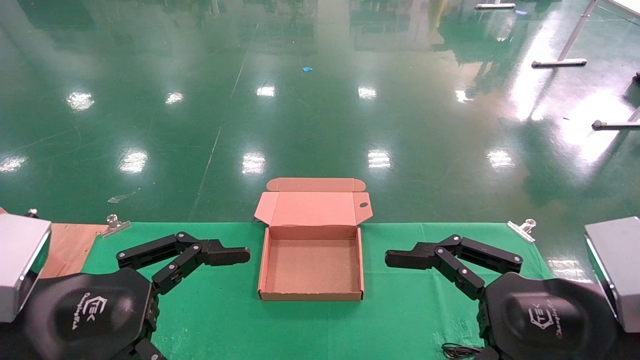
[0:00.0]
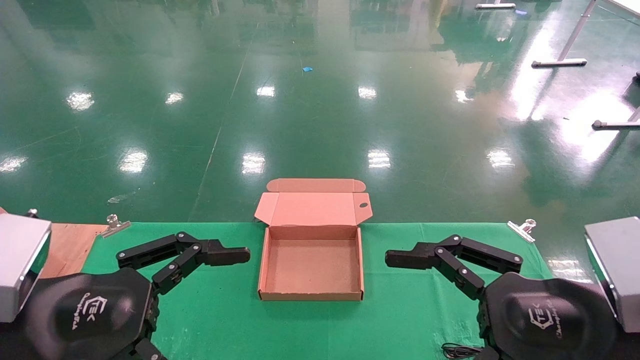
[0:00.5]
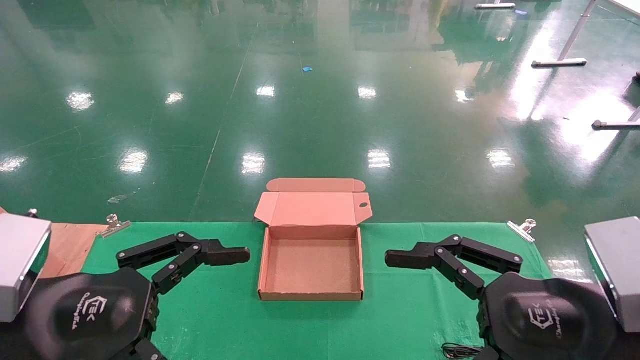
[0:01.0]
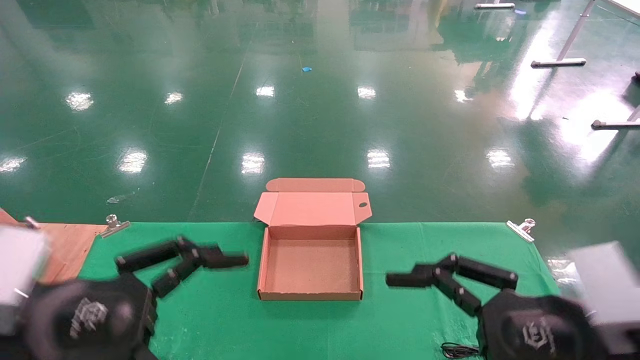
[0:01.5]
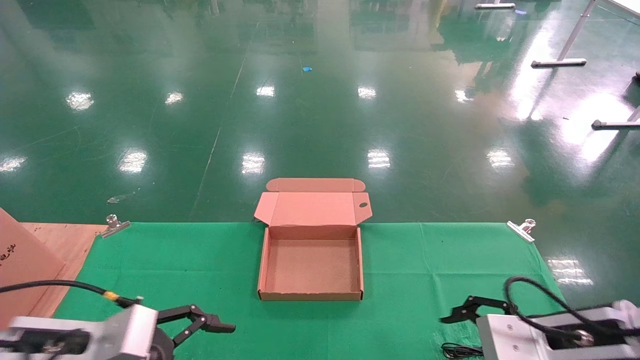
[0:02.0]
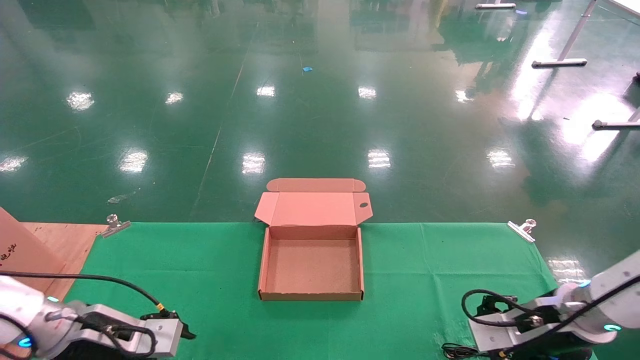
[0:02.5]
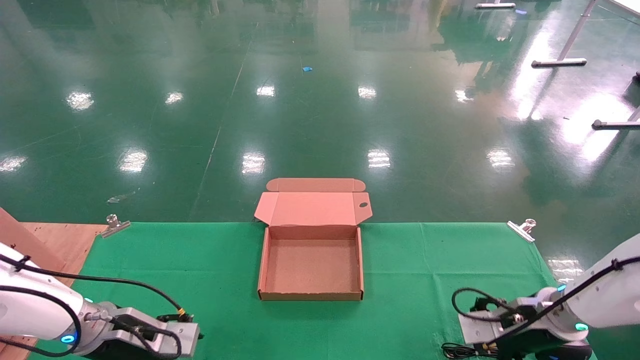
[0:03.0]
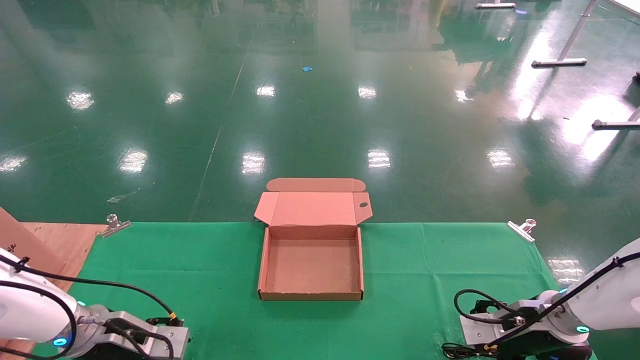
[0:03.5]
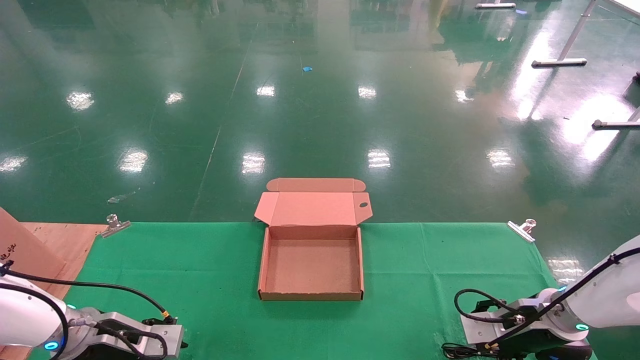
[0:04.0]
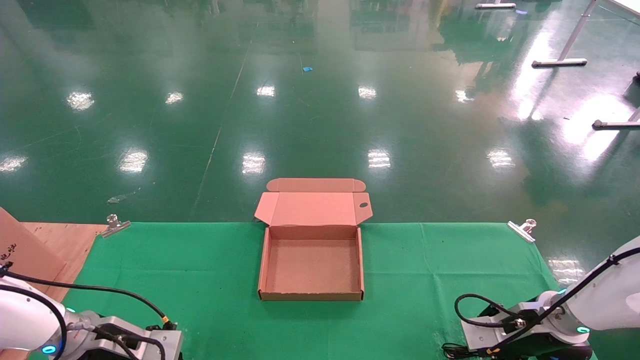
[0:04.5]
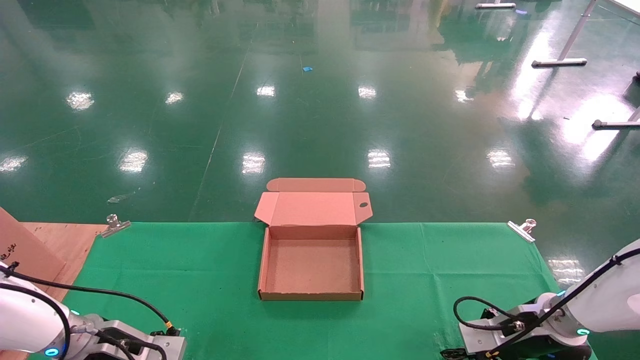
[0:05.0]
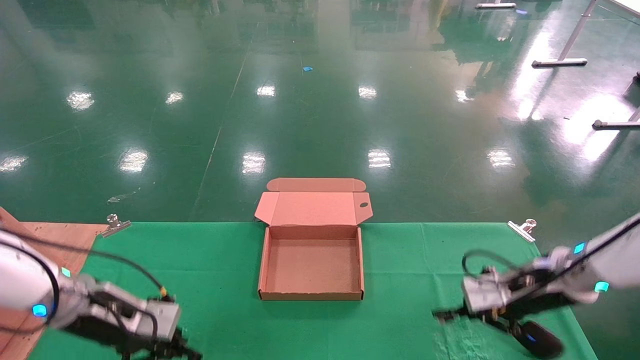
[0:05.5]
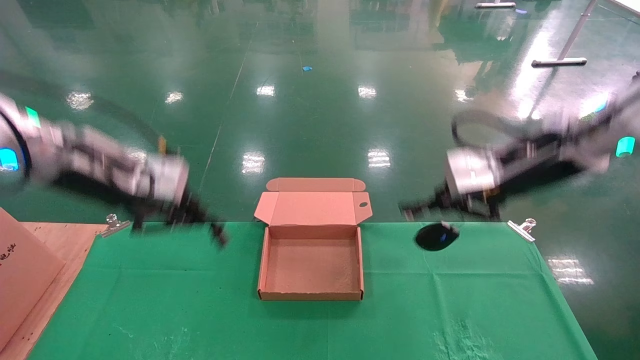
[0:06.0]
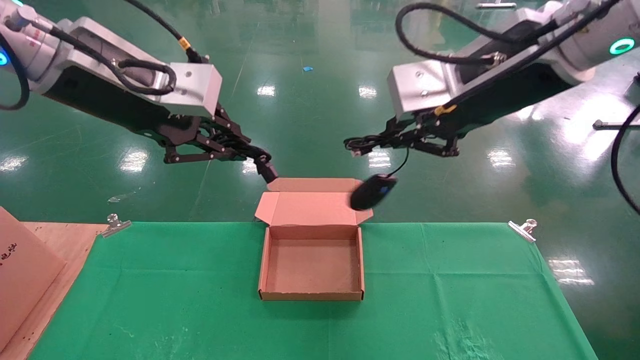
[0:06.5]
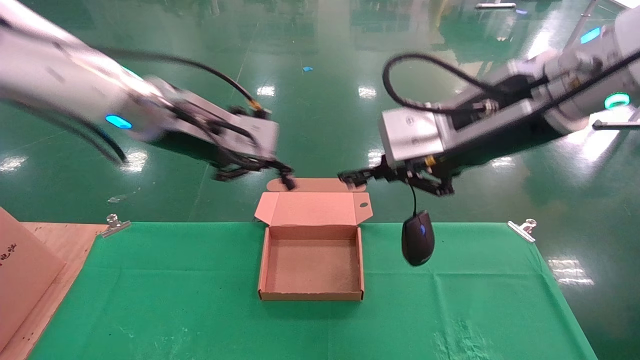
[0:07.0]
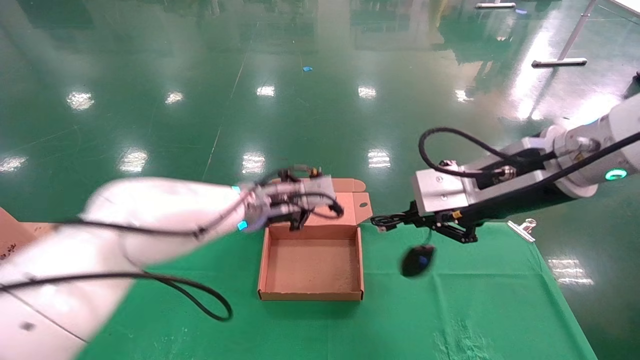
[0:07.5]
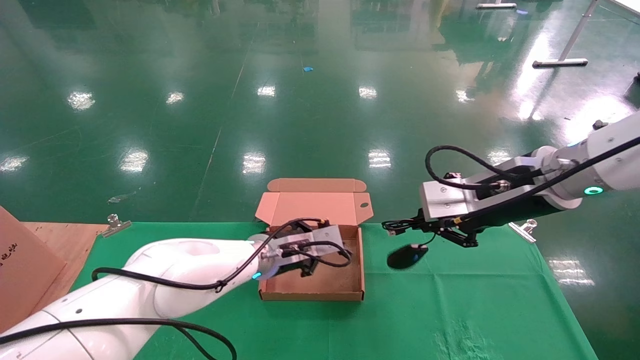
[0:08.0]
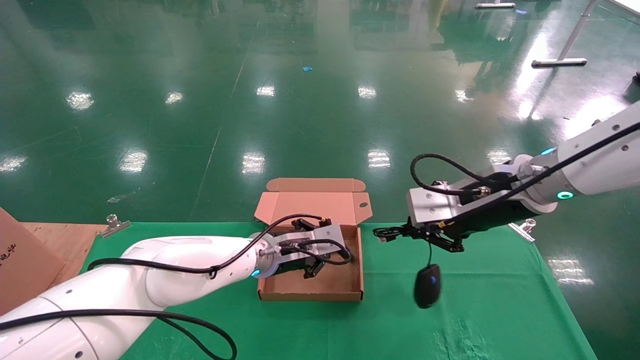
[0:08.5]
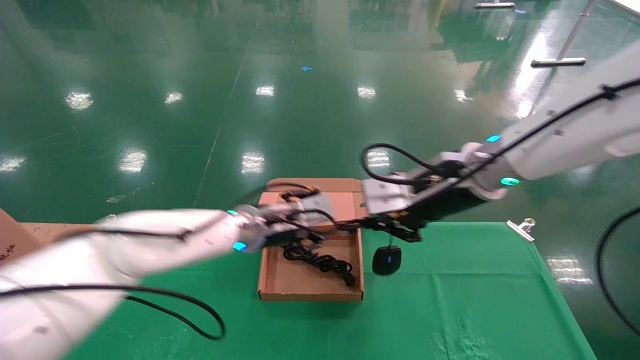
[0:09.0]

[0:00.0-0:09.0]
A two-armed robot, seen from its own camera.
Step, 0:03.0 to 0:05.5: Grab and lift both the mouse and power cord from the accessory packaging area at the same time.
0:00.0 to 0:02.0: The right gripper is displaced forward and downward by about 10 cm, while the left gripper moves downward and forward, approximately 10 cm.
0:02.0 to 0:04.5: The grippers both shift forward and downward by approximately 15 cm. The right gripper closes its fingers. Meanwhile the left gripper closes its fingers.
0:04.5 to 0:07.0: The right gripper travels upward, to the left and backward by about 40 cm, and closes its fingers, while the left gripper travels upward and to the right by about 35 cm.
0:07.0 to 0:09.0: The right gripper goes some 15 cm forward and downward; the left gripper is displaced downward and forward by approximately 20 cm, and opens up.

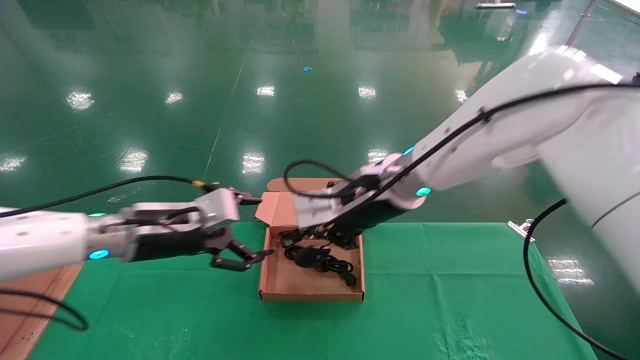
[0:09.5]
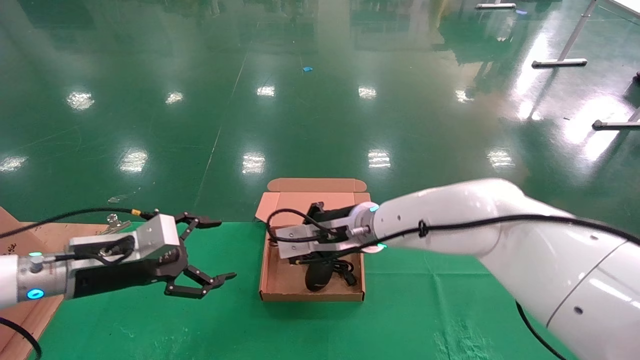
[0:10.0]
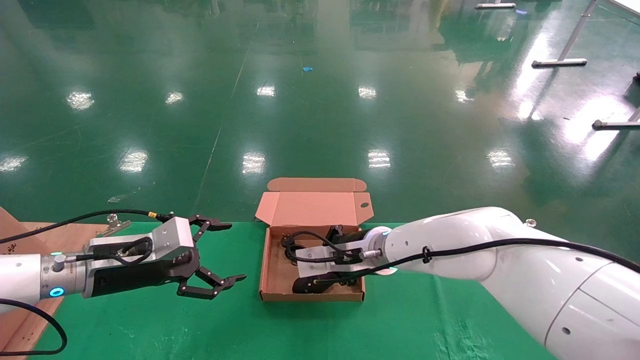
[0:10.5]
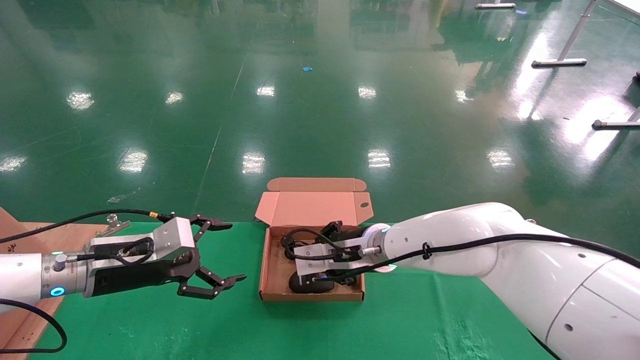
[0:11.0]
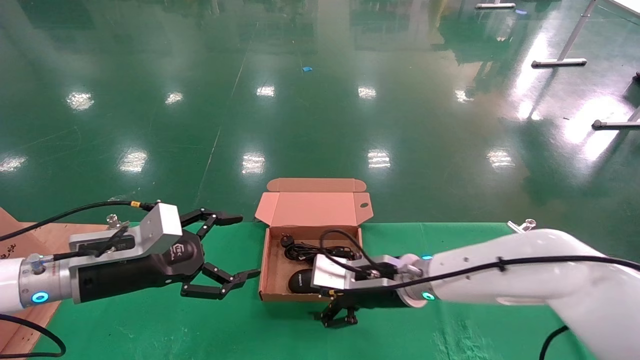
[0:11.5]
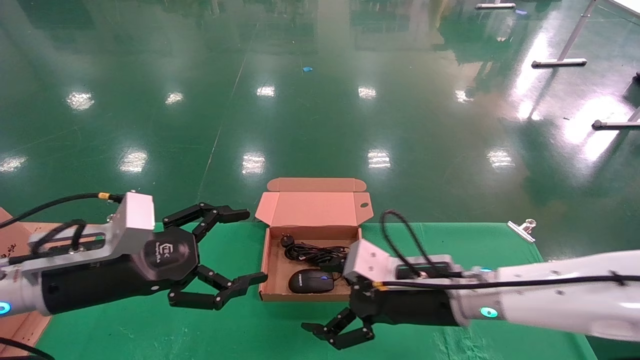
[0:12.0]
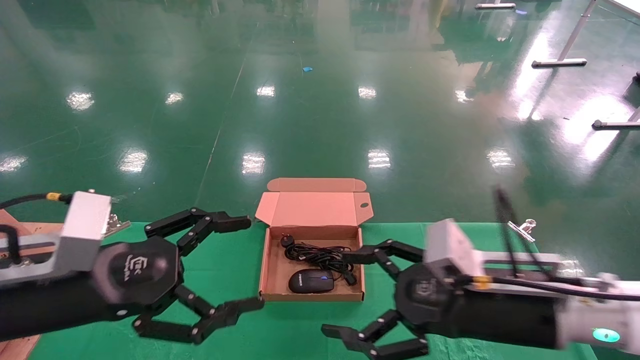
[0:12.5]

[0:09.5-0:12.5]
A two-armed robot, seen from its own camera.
0:09.5 to 0:11.0: The right gripper goes about 10 cm downward; the left gripper shifts about 5 cm to the left.
0:11.0 to 0:12.5: The right gripper shifts approximately 20 cm backward and to the right, and opens. The left gripper travels backward by approximately 15 cm.

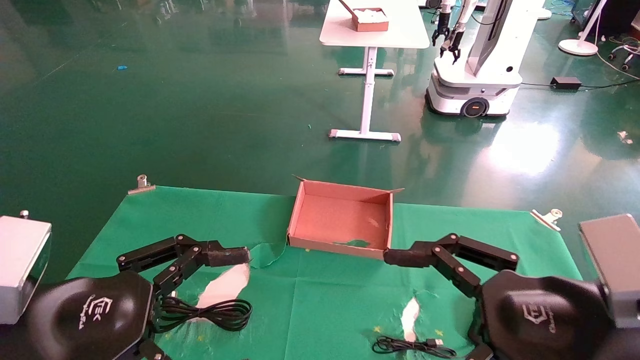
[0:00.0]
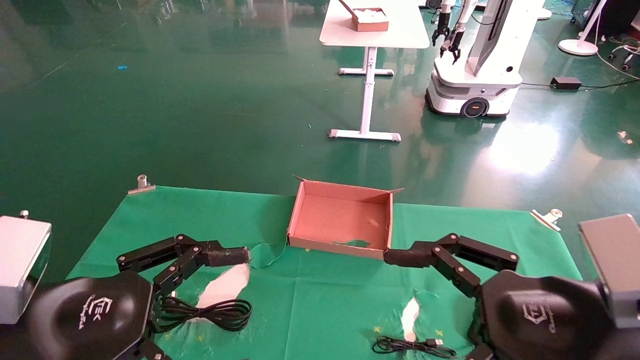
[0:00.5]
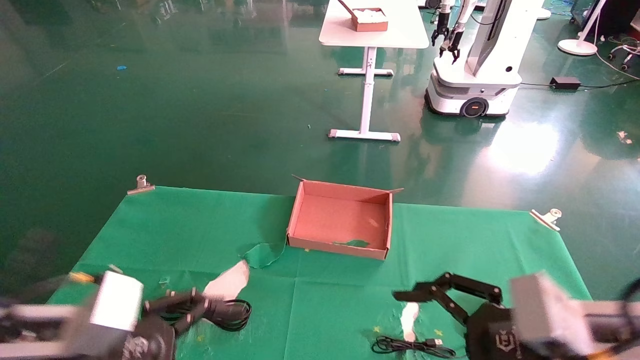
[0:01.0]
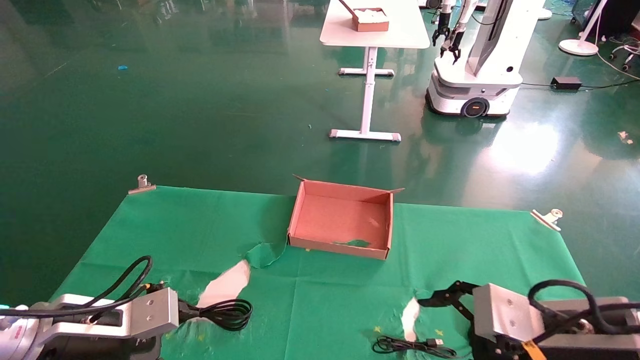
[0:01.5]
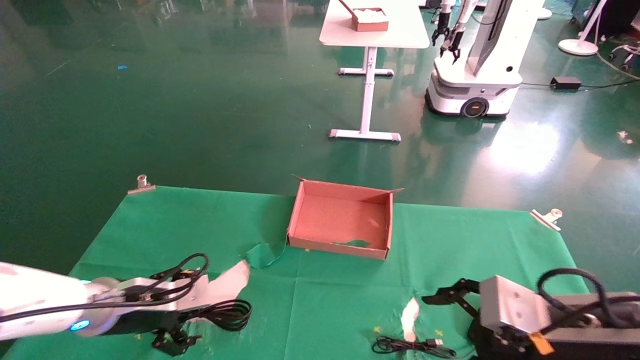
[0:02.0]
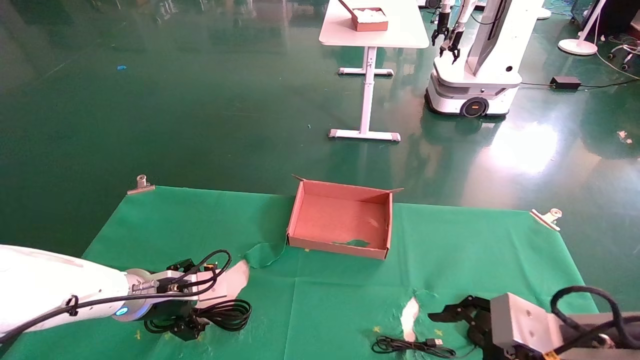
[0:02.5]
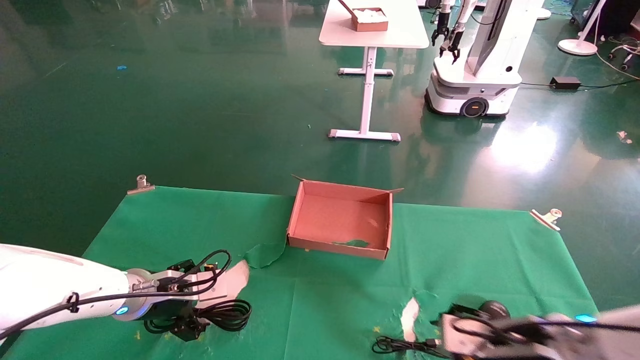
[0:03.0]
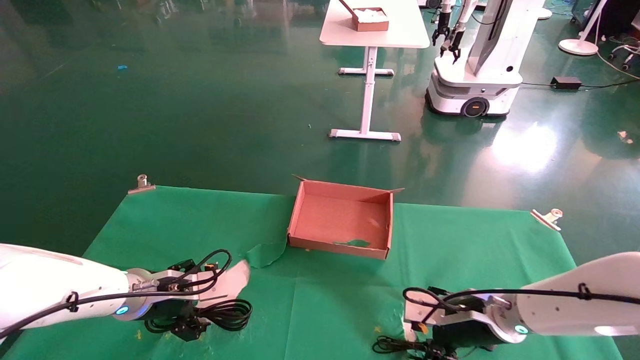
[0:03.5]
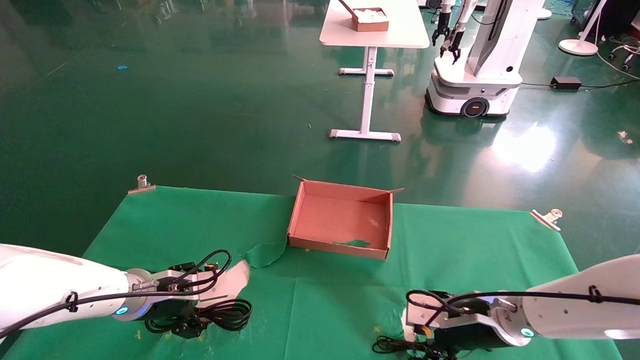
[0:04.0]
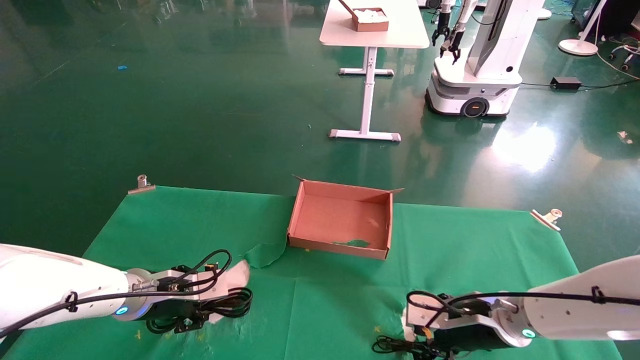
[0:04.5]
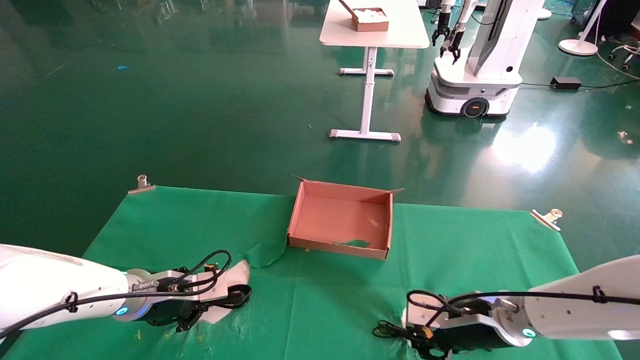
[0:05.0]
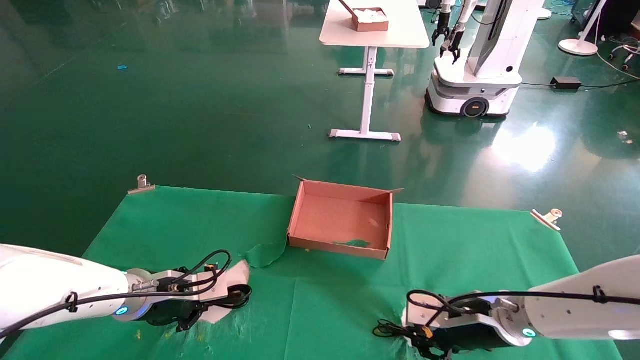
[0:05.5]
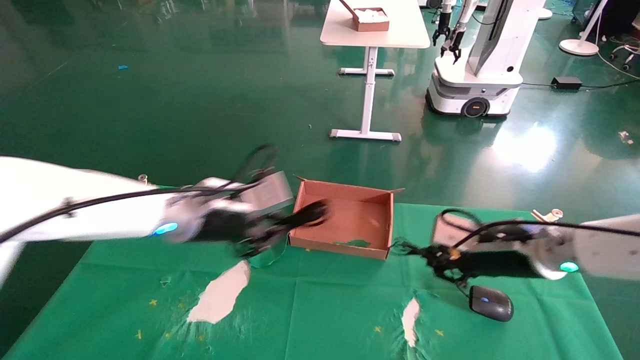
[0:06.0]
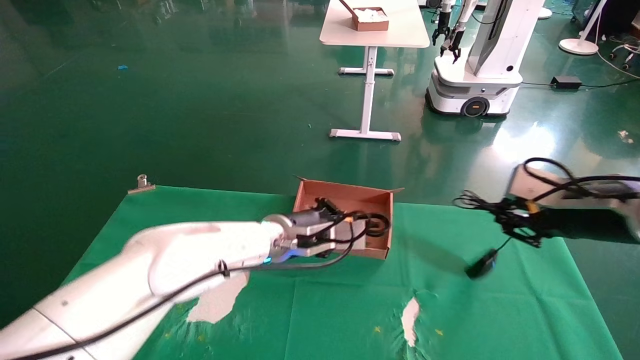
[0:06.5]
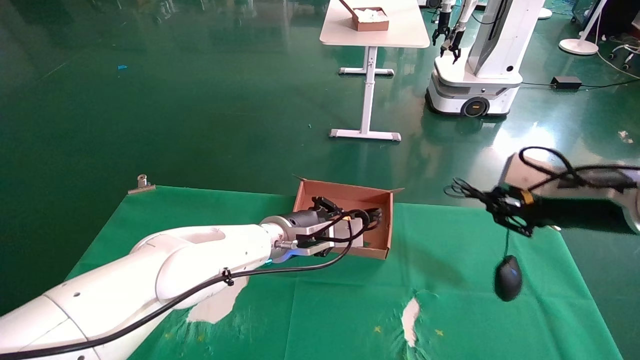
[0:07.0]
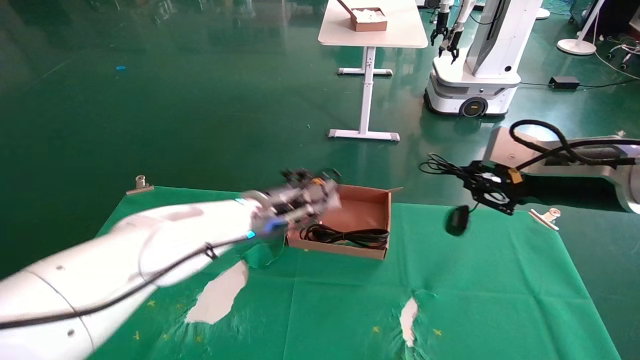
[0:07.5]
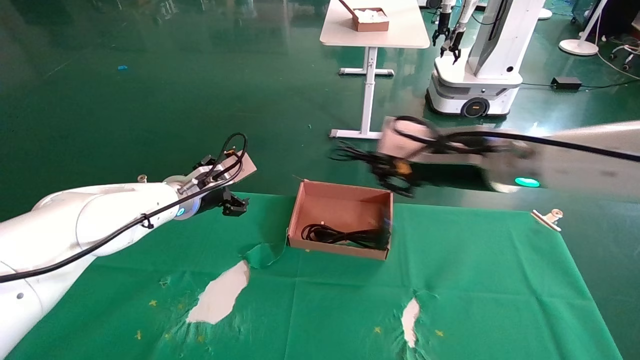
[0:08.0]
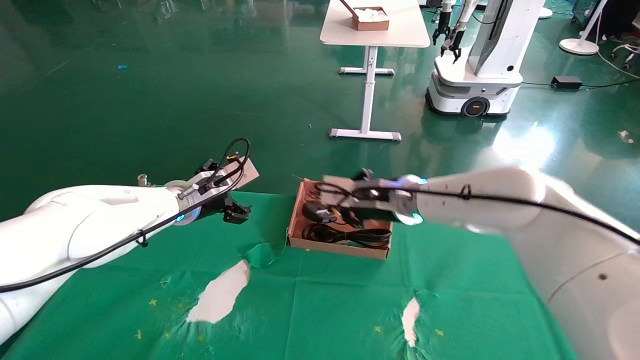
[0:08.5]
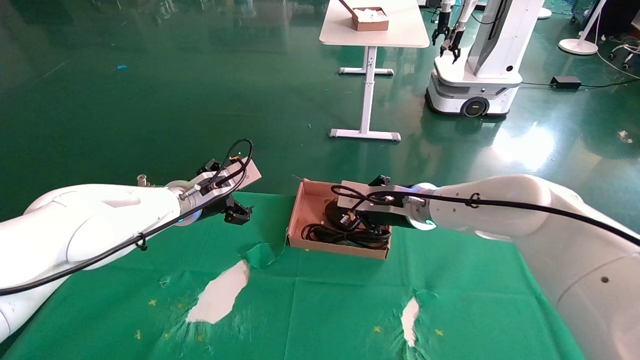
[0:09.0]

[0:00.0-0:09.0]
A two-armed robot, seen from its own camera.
Step, 0:01.5 to 0:05.5: Grab and lift both the mouse and power cord from the accessory packaging area at the same time.
0:00.0 to 0:02.0: The left gripper is displaced forward and downward by about 20 cm; the right gripper heads downward and forward, covering approximately 10 cm.
0:02.0 to 0:04.5: The right gripper moves forward and downward, roughly 15 cm, and closes up, while the left gripper closes its fingers.
0:04.5 to 0:07.0: The right gripper travels upward and to the right by approximately 20 cm, and closes up. The left gripper is displaced to the right by some 20 cm, and closes its fingers.
0:07.0 to 0:09.0: The left gripper goes some 15 cm to the left, and opens up. Meanwhile the right gripper travels to the left and forward by roughly 25 cm.
